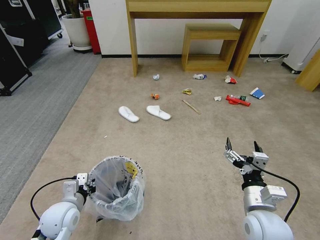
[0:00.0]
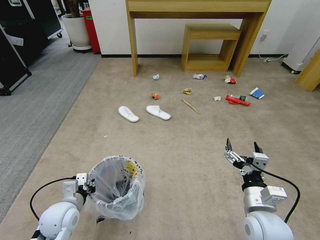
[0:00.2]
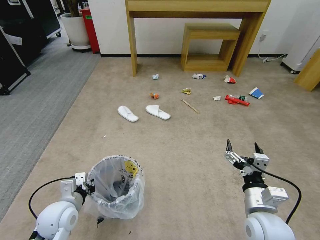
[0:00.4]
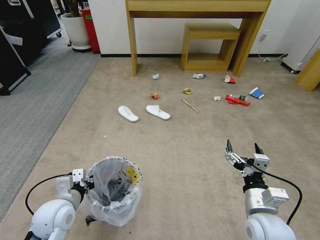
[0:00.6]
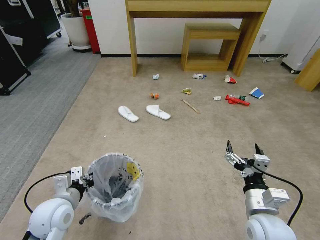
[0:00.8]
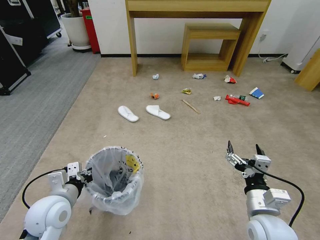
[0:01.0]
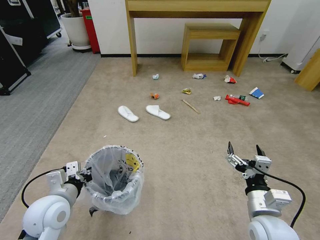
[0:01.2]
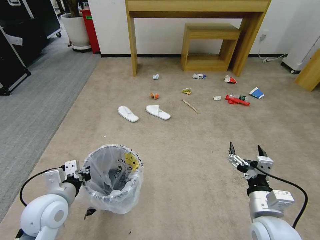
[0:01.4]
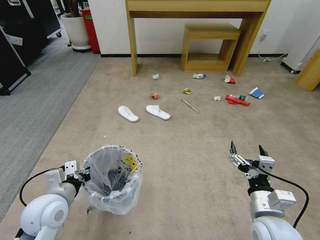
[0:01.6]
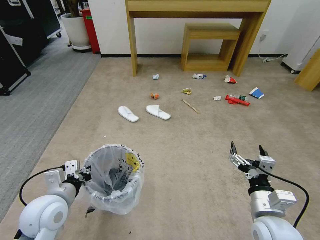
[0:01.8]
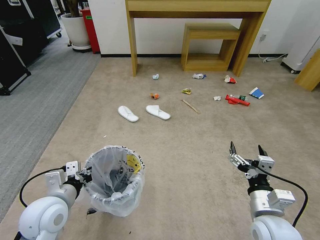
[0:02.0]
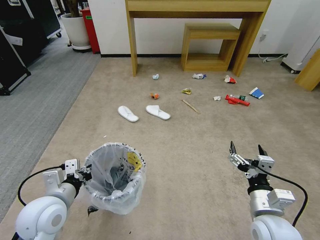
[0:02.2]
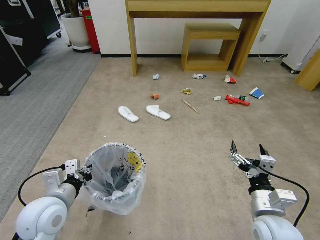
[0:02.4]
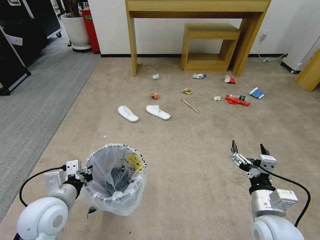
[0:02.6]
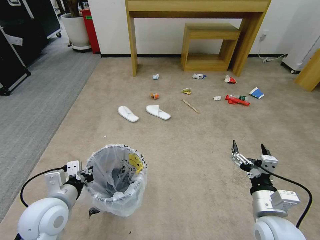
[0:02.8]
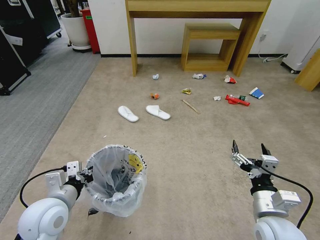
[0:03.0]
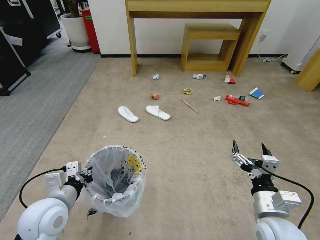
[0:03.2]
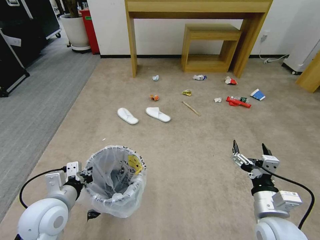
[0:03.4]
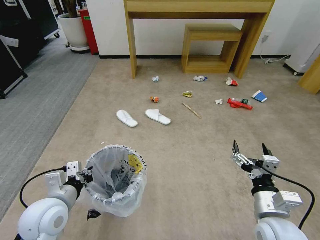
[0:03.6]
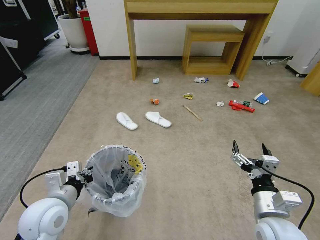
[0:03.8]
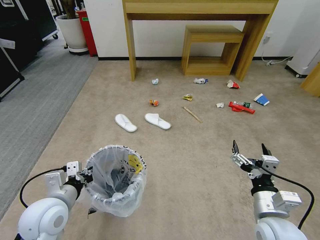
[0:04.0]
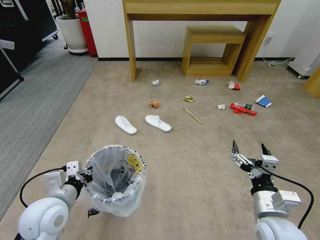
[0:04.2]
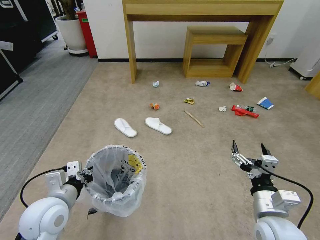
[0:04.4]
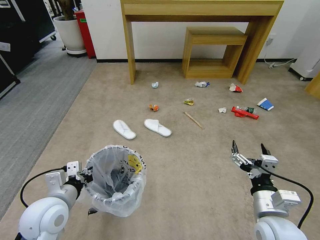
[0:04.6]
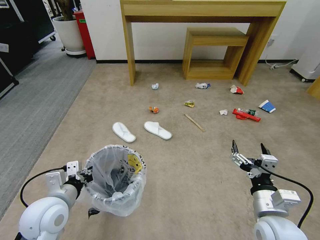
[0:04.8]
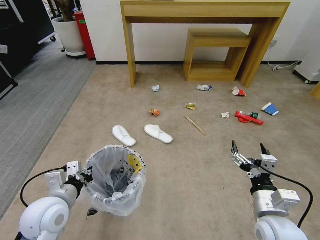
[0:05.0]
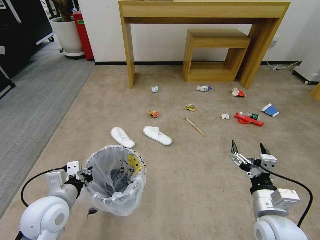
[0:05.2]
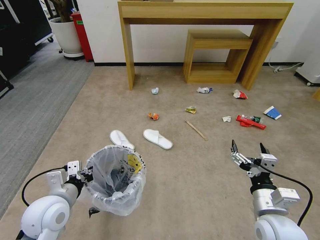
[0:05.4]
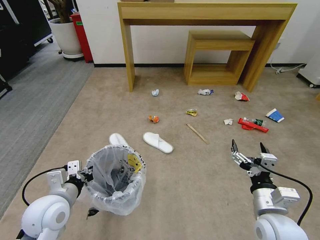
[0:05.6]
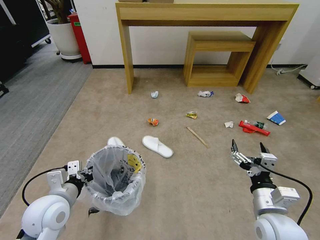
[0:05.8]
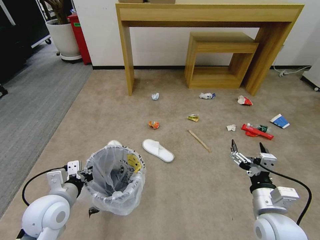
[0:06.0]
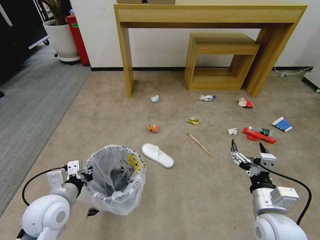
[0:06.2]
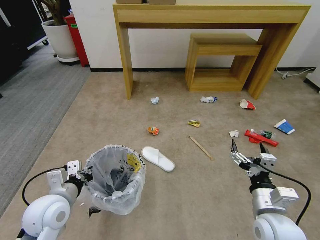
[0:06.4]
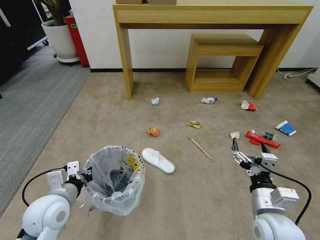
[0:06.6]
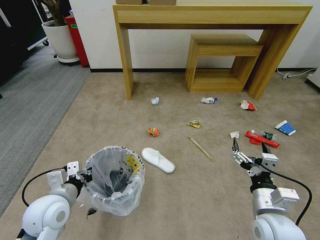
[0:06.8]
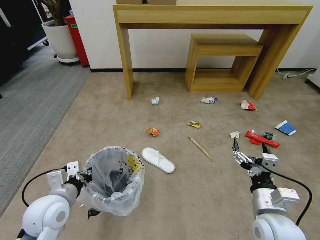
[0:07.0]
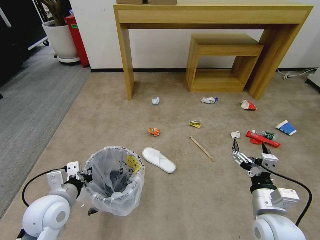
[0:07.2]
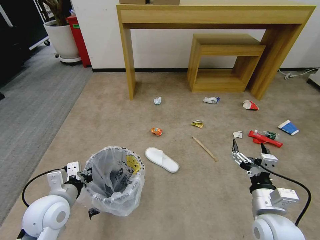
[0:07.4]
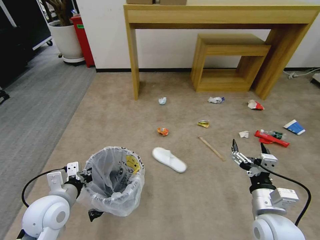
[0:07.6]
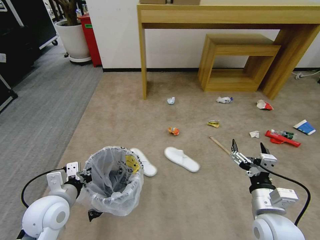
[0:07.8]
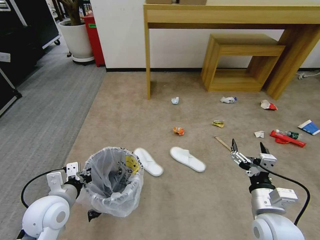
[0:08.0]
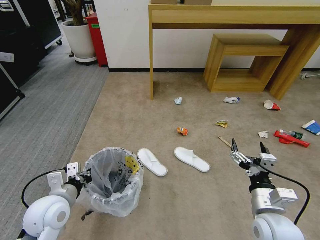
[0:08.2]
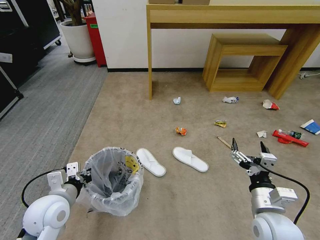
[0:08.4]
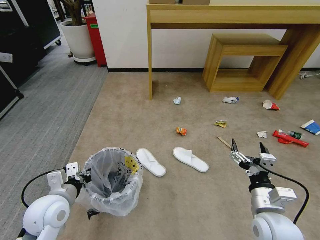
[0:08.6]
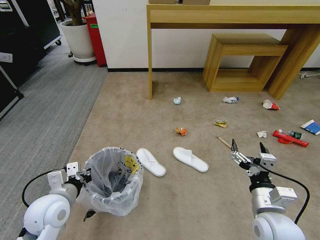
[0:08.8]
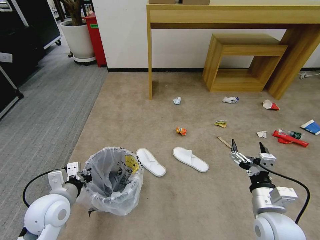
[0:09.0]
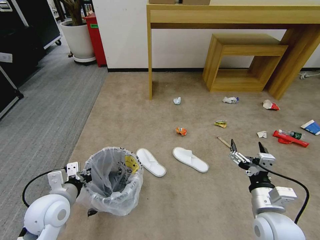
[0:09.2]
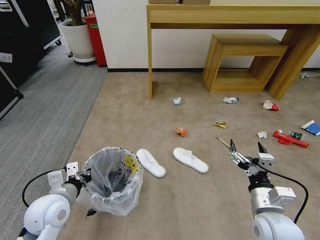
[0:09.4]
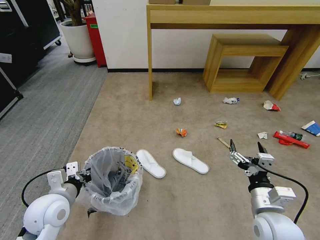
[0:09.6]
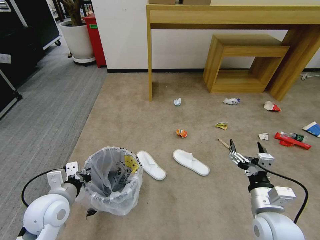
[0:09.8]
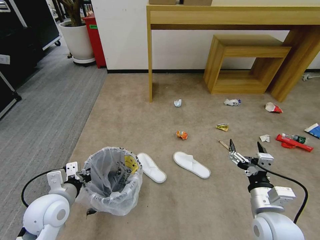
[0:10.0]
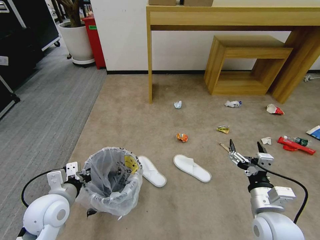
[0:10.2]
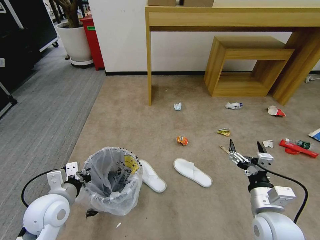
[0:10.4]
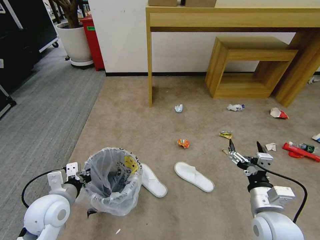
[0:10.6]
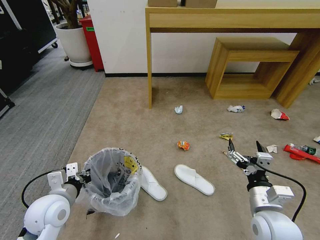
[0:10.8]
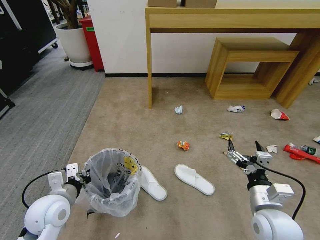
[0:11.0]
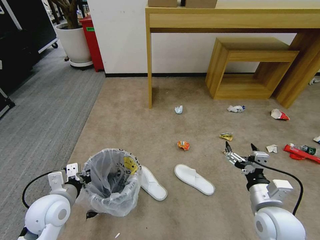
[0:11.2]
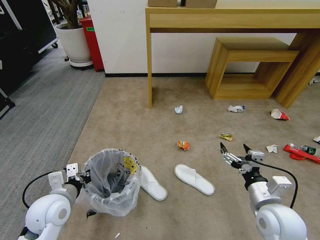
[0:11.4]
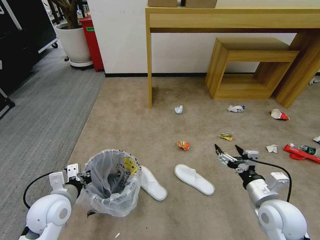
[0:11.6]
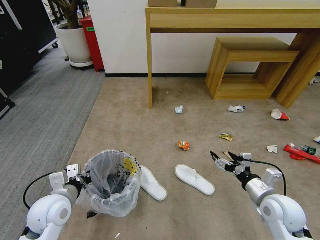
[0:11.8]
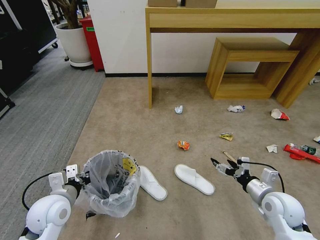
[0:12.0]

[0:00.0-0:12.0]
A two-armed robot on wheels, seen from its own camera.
Task of the whole recording: Pick up the trash bin and place the garbage on the floor into it.
0:00.0 to 0:01.6: The left gripper travels upward by some 10 cm.
0:01.6 to 0:03.0: The grippers make only small movements.
0:03.0 to 0:04.4: The two grippers keep their place.
0:06.0 to 0:07.6: Both grippers stay put.
0:09.0 to 0:10.4: The two grippers keep their place.
0:10.4 to 0:12.0: The right gripper moves to the right and forward, approximately 10 cm.

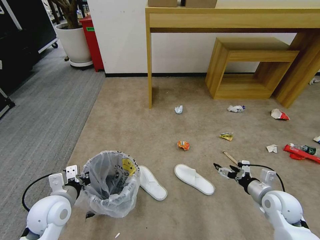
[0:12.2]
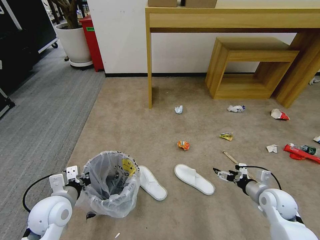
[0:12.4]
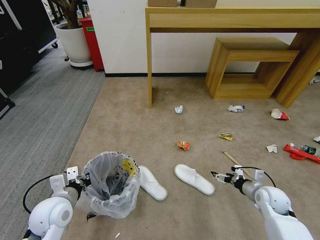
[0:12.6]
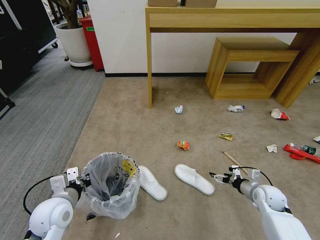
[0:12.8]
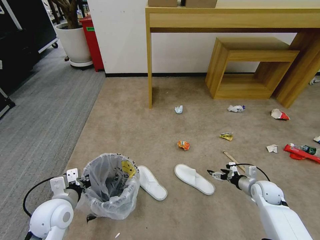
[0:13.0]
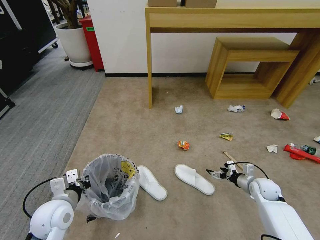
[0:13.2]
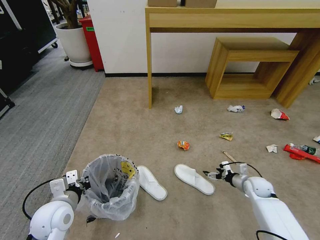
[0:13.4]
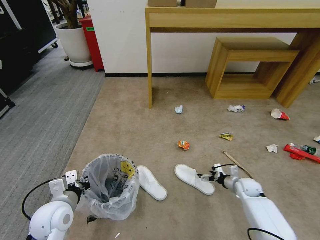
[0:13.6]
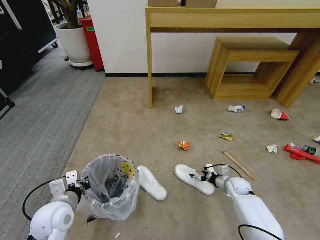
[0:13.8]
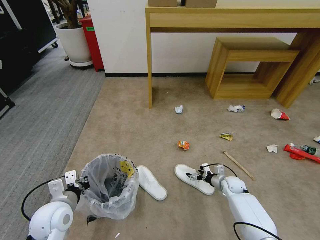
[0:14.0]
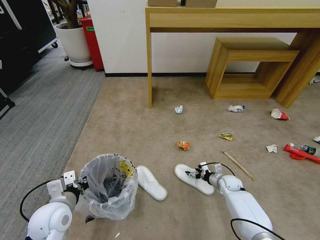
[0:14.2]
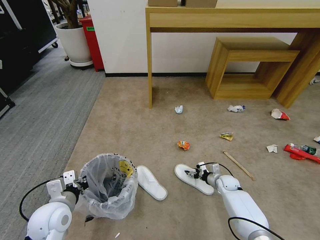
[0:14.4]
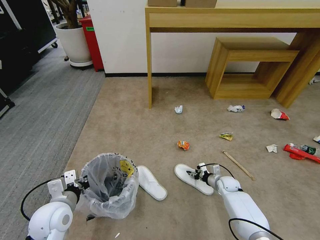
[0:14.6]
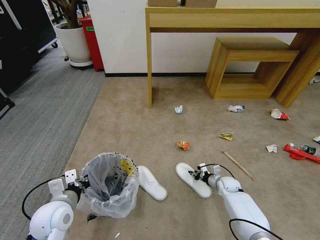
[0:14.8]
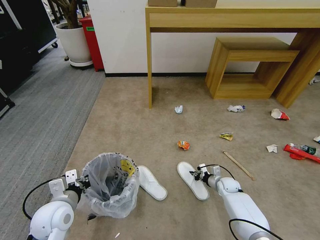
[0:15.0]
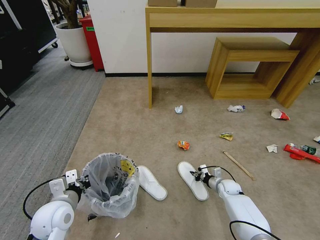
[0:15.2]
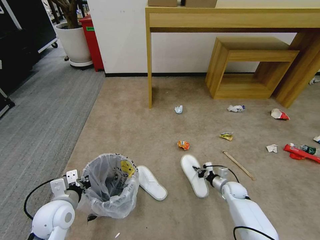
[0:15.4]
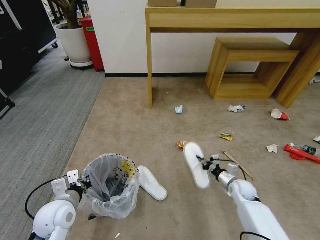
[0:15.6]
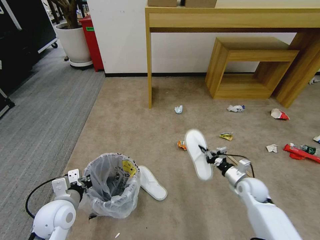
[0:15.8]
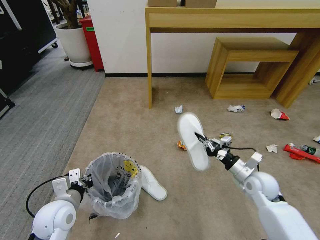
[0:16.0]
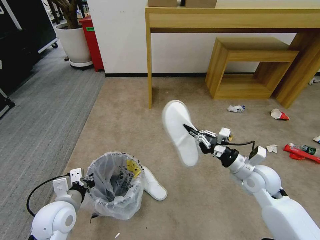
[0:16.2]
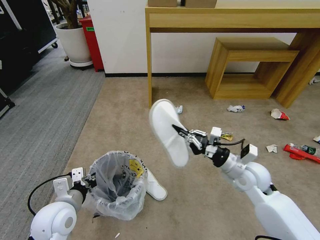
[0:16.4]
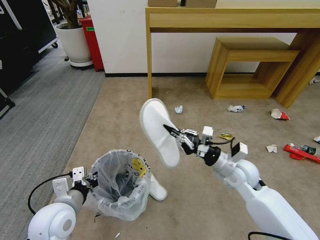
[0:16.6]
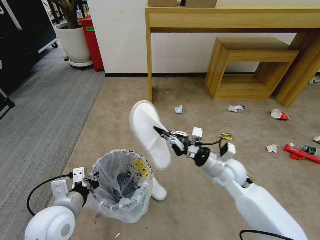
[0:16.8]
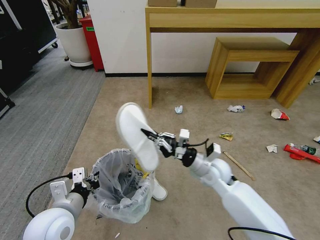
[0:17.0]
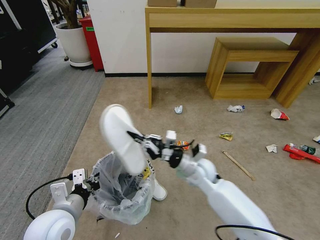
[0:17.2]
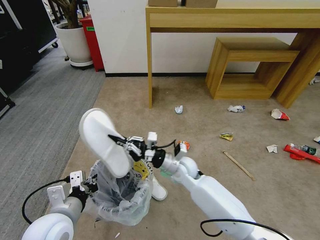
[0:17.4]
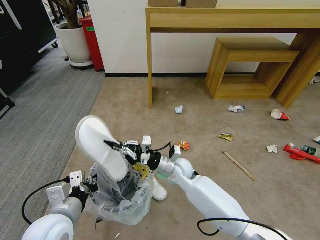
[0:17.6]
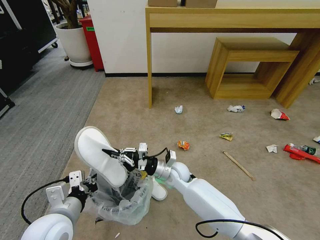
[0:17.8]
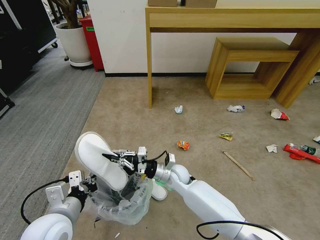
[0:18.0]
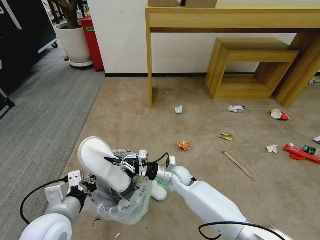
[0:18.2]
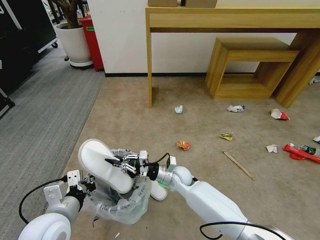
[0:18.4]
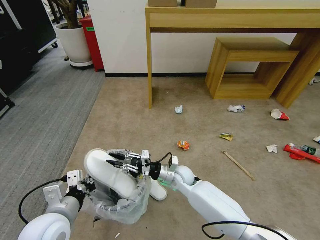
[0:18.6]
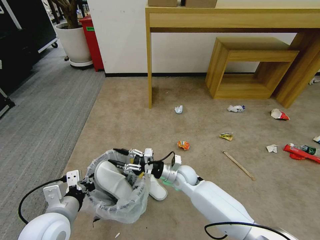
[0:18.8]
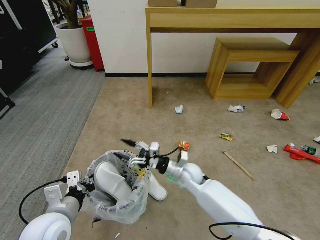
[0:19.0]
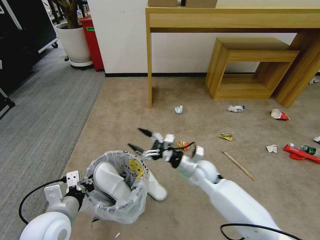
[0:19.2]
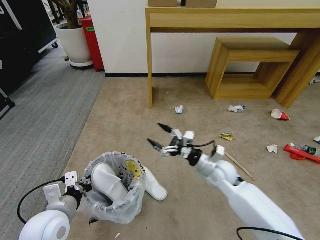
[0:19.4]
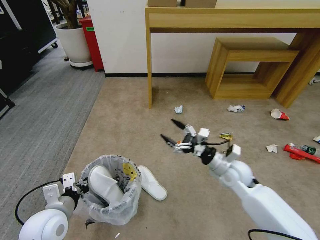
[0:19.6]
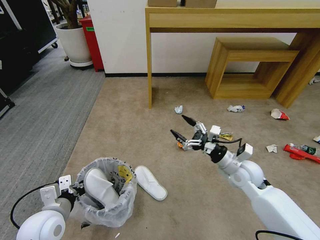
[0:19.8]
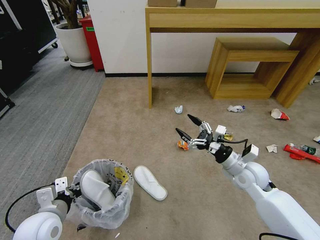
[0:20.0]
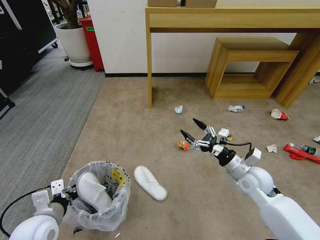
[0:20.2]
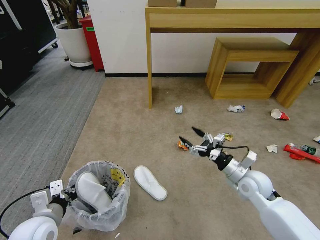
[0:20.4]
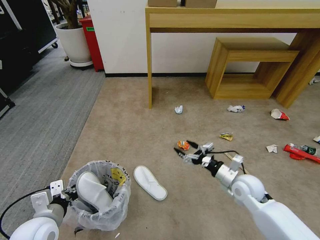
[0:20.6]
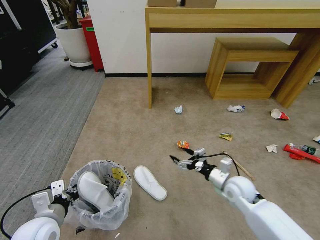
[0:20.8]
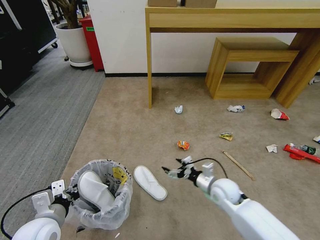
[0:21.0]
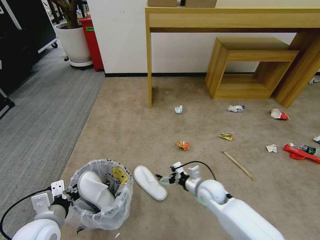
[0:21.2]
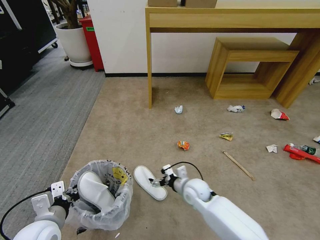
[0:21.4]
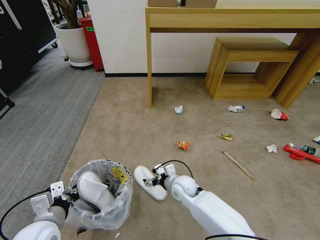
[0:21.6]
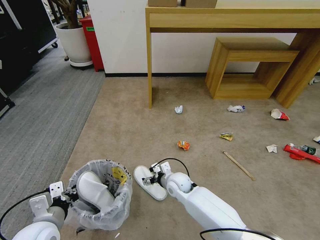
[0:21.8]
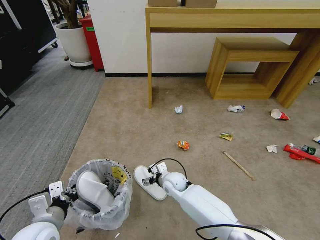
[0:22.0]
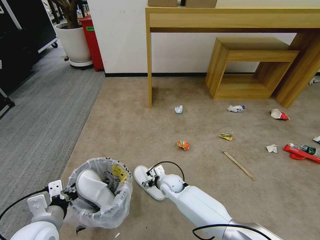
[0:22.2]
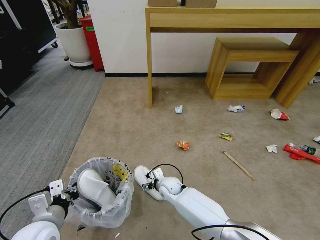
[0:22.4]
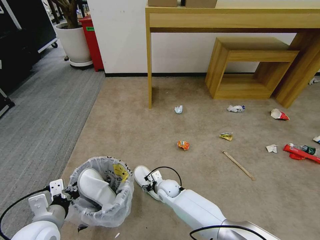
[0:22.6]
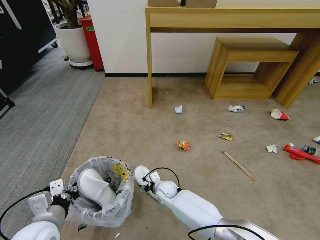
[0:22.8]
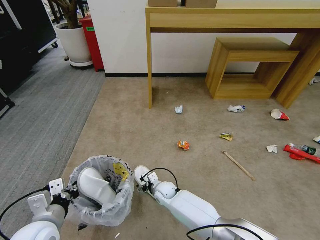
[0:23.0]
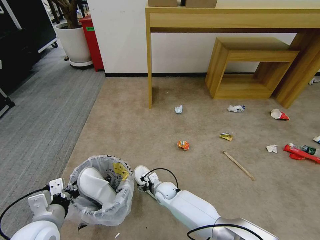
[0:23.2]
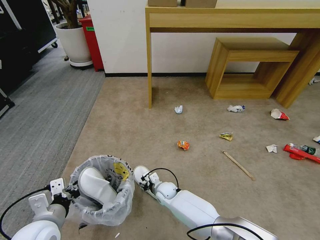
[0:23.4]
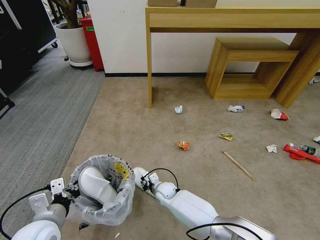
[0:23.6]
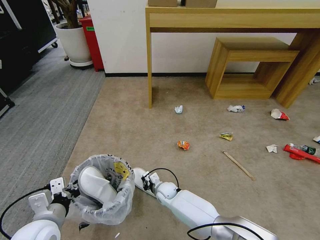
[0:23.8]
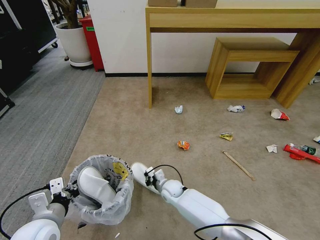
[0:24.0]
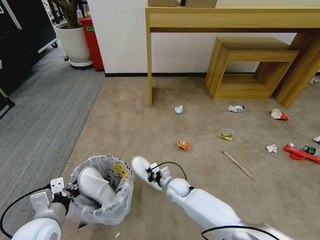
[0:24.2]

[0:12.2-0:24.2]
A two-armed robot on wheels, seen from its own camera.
Task of the whole recording: Pick up the trash bin and place the garbage on the floor into it.
0:12.2 to 0:13.8: The right gripper shifts approximately 20 cm downward and forward.
0:13.8 to 0:15.2: The right gripper closes up.
0:15.2 to 0:16.6: The left gripper shifts by some 5 cm, while the right gripper moves upward, roughly 25 cm.
0:16.6 to 0:18.2: The right gripper shifts roughly 20 cm to the left and downward.
0:18.2 to 0:19.8: The left gripper changes place by approximately 5 cm. Meanwhile the right gripper moves to the right and upward, some 25 cm, and opens.
0:19.8 to 0:21.2: The right gripper moves downward and to the left, roughly 15 cm.
0:21.2 to 0:22.6: The right gripper goes some 15 cm to the left and downward.
0:22.6 to 0:24.2: The right gripper closes its fingers.
